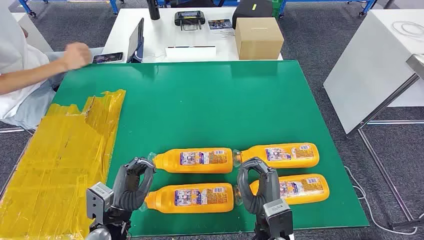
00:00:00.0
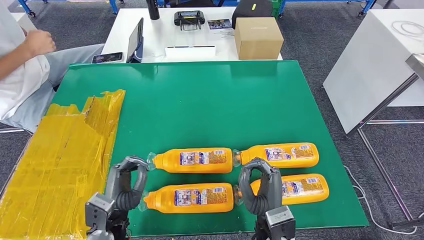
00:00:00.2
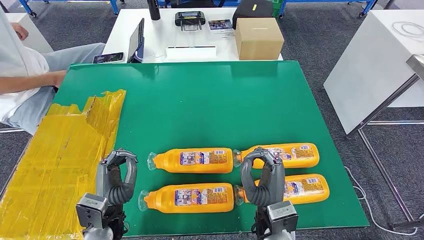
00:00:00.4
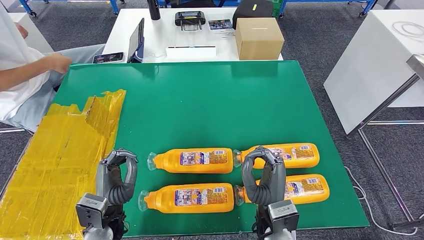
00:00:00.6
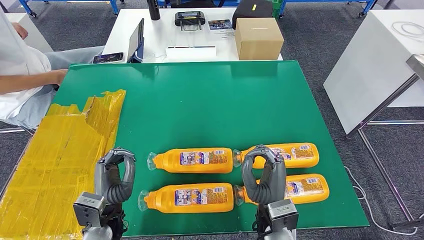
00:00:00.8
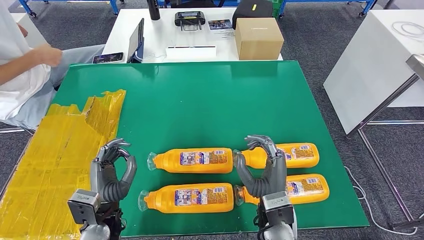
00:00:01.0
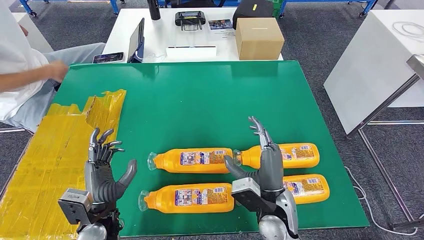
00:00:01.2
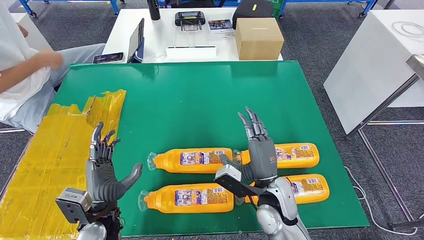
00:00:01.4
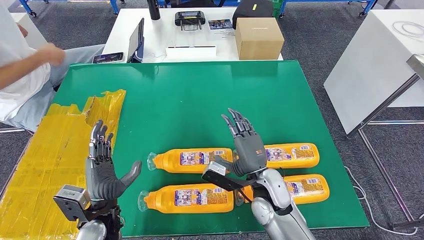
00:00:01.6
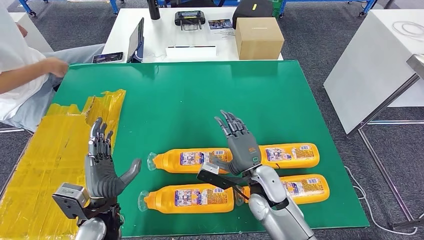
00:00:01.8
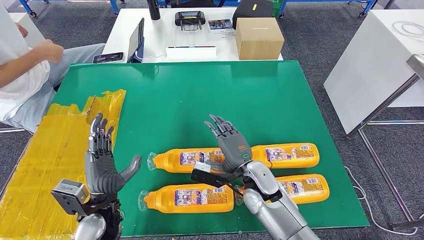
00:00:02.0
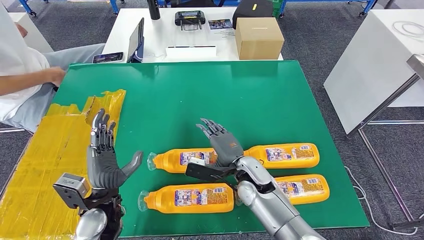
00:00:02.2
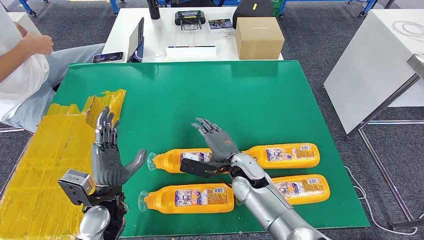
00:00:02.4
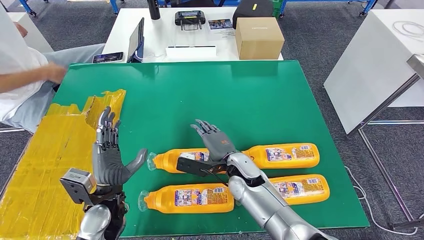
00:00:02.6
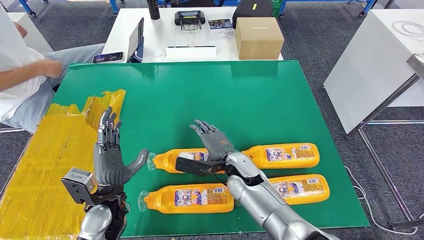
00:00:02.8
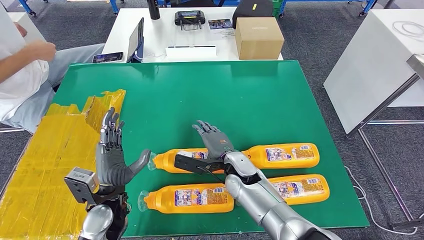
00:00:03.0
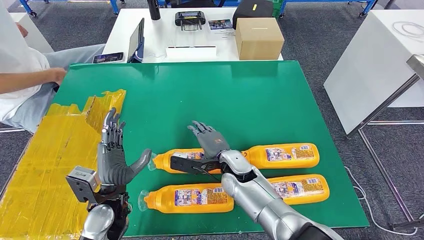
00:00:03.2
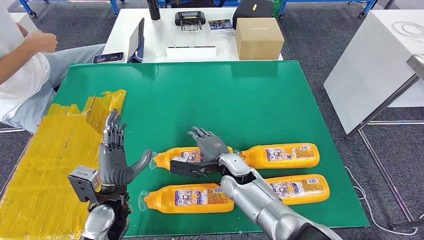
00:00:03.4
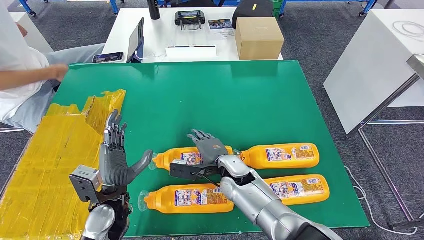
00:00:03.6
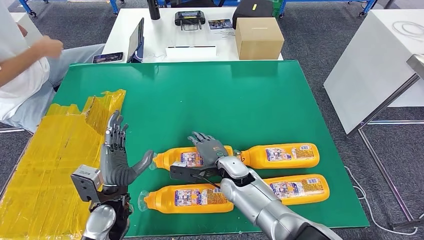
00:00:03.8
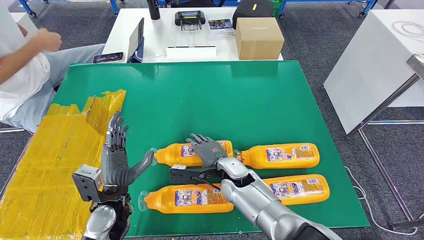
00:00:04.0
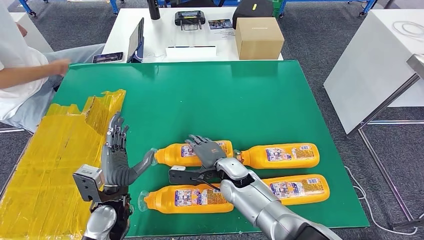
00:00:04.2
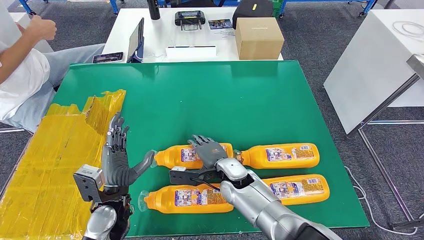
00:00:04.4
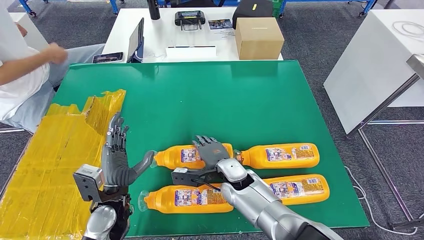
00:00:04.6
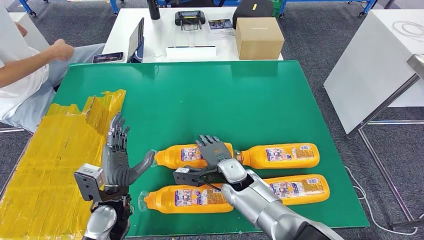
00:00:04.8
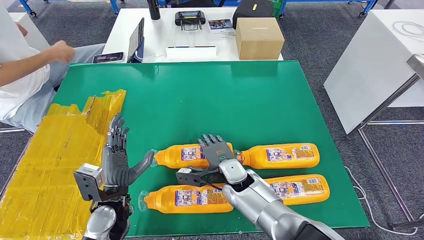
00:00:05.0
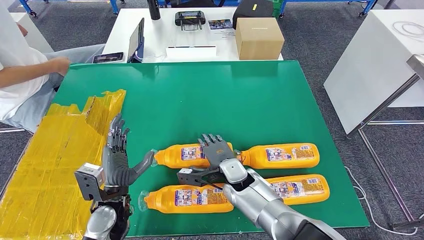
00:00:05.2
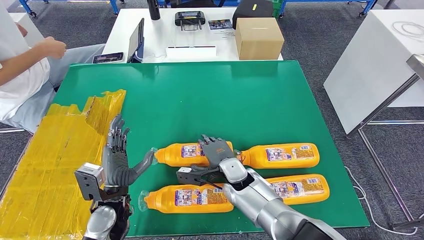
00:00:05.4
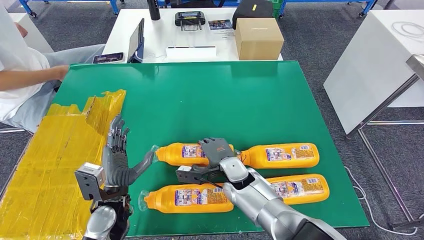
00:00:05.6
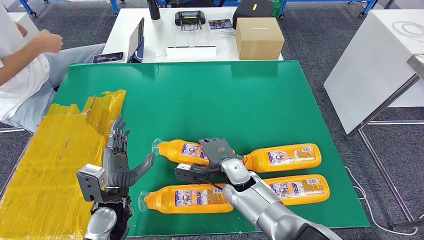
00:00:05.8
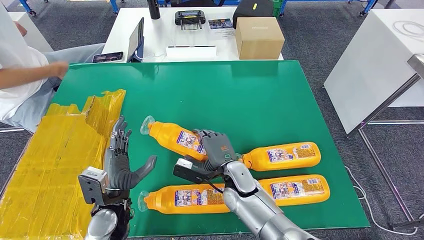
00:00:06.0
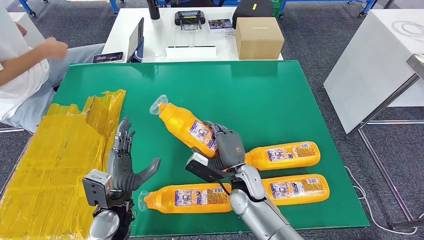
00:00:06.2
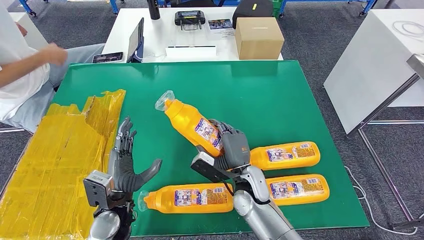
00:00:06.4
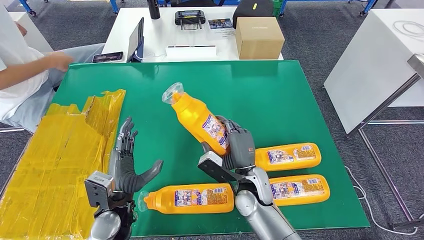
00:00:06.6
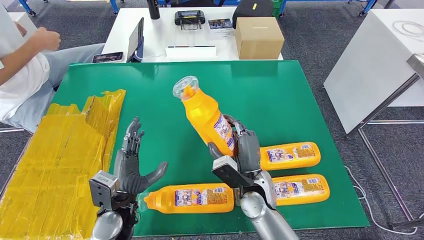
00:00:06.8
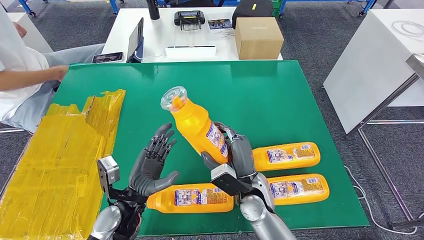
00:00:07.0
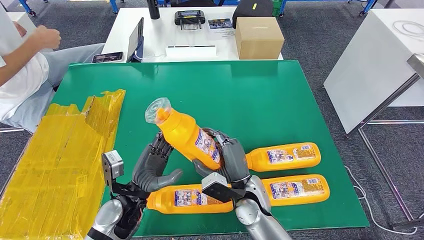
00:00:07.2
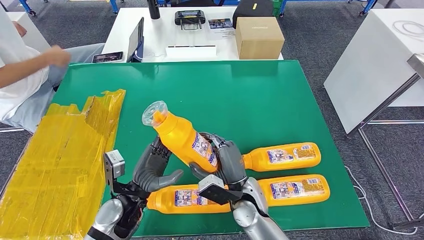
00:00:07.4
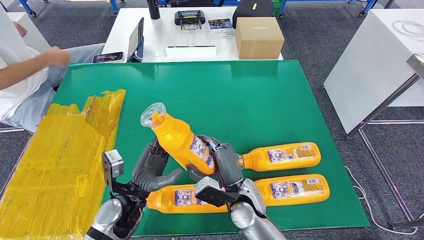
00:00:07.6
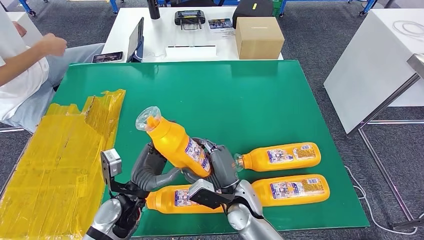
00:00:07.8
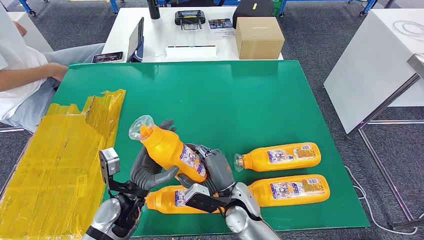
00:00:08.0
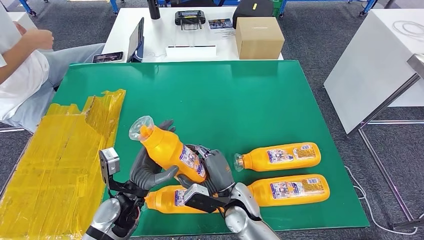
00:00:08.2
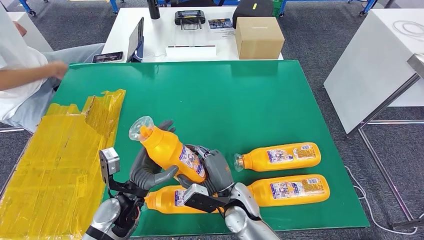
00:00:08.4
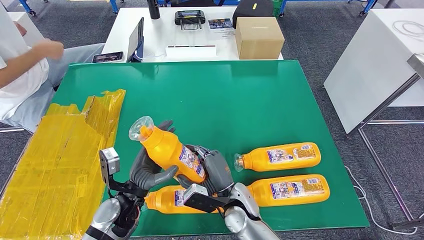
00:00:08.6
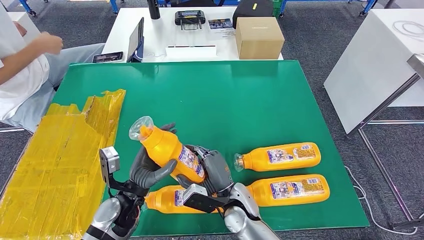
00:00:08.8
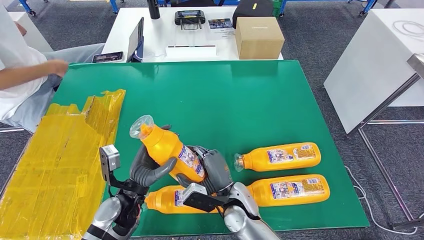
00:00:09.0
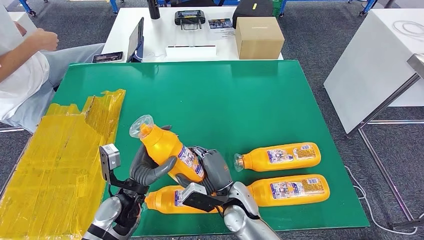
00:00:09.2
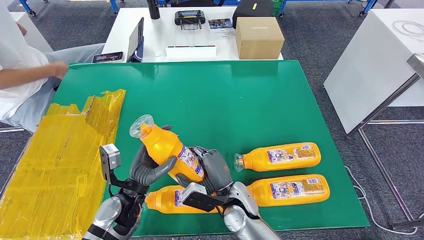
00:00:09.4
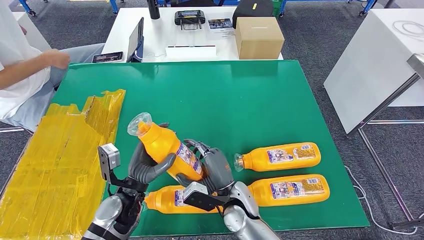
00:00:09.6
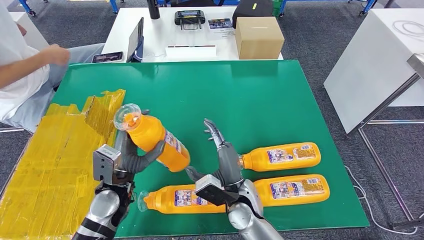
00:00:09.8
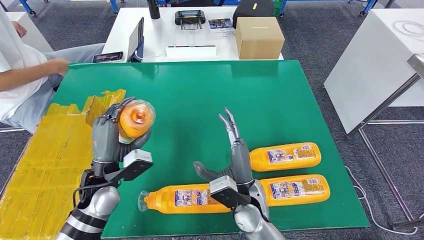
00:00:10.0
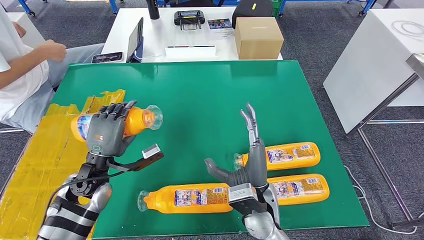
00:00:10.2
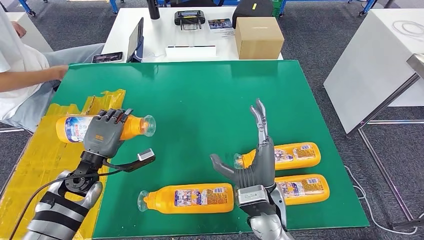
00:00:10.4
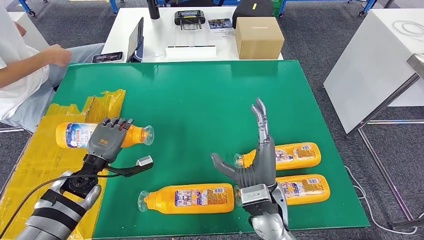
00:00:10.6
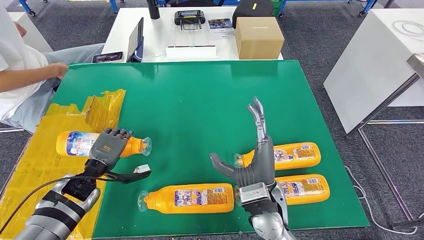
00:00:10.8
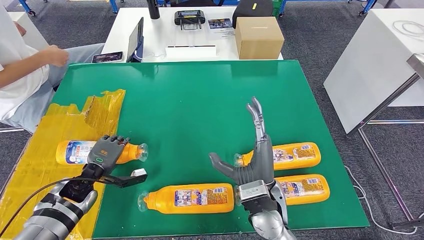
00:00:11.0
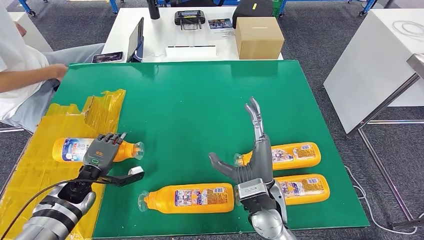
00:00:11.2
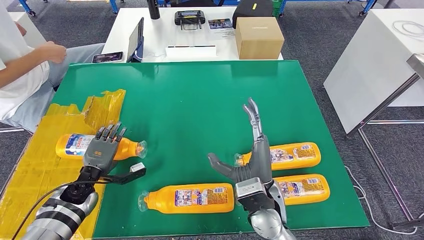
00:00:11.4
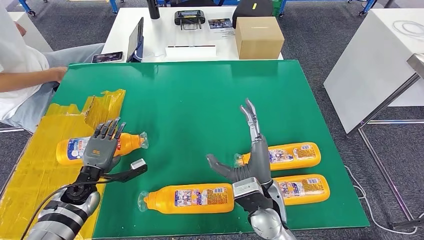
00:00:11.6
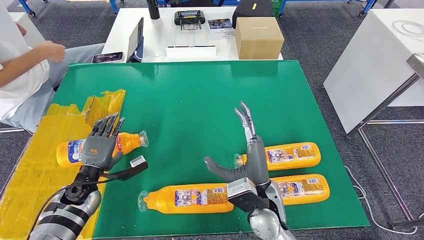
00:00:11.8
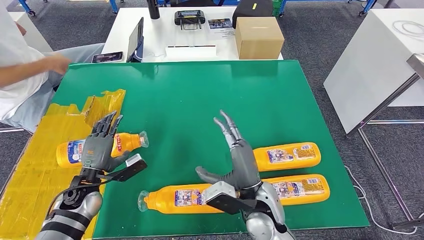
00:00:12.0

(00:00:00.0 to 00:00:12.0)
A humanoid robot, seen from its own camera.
Step, 00:00:00.0 - 00:00:06.2: Take the bottle from the table.
00:00:01.6 - 00:00:03.0: The right hand is displaced to the left and forward by approximately 10 cm.
00:00:03.0 - 00:00:04.4: The hands move only a little.
00:00:06.0 - 00:00:07.6: The right hand heads backward, covering some 5 cm.
00:00:07.6 - 00:00:09.0: The hands stay close to where they were, moving slightly.
00:00:09.0 - 00:00:10.4: The right hand heads upward, covering approximately 10 cm, while the left hand travels to the left and forward by approximately 10 cm.
00:00:10.4 - 00:00:12.0: The left hand moves downward, some 5 cm.

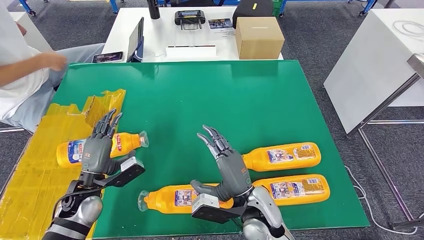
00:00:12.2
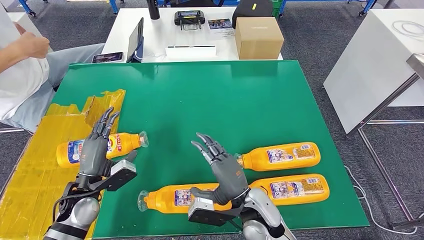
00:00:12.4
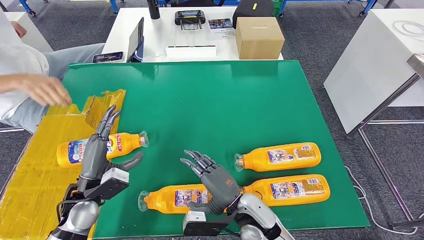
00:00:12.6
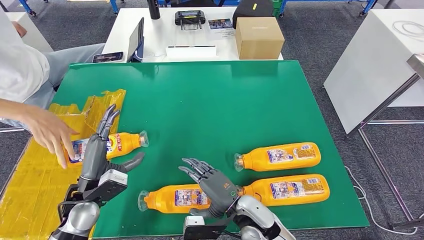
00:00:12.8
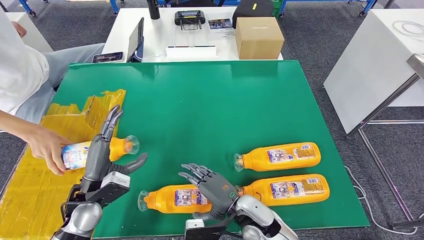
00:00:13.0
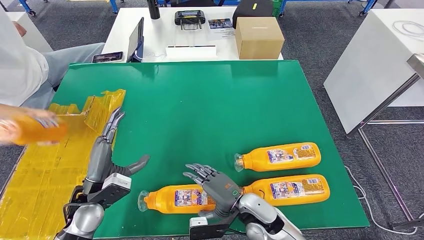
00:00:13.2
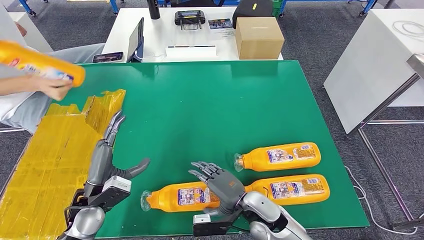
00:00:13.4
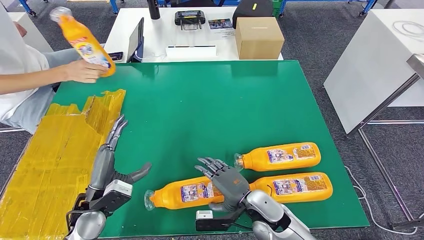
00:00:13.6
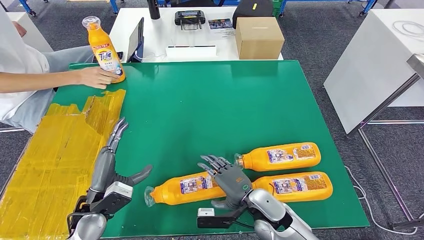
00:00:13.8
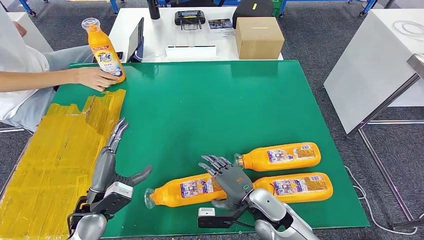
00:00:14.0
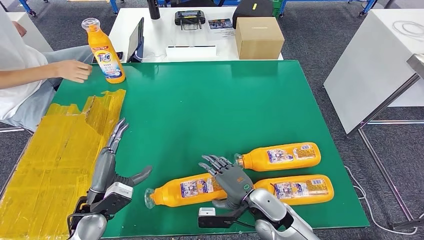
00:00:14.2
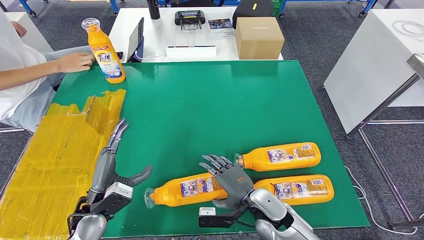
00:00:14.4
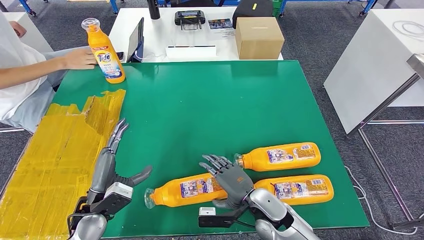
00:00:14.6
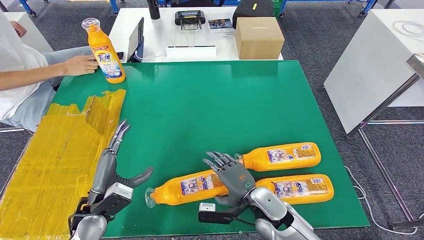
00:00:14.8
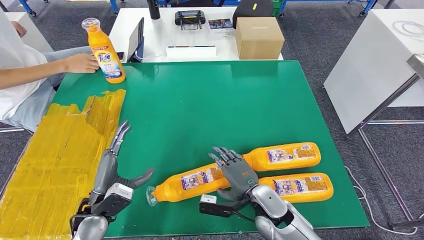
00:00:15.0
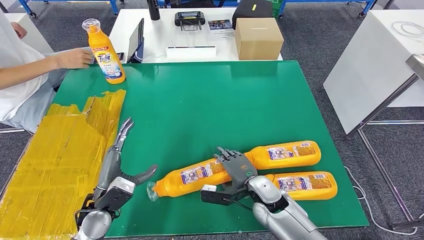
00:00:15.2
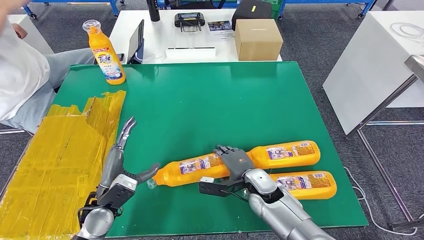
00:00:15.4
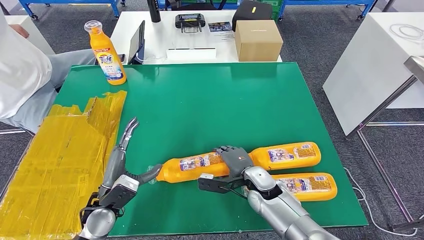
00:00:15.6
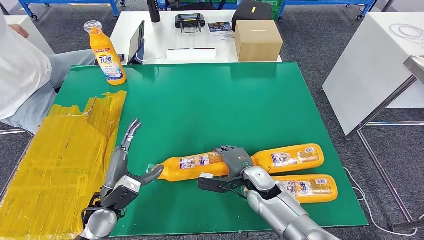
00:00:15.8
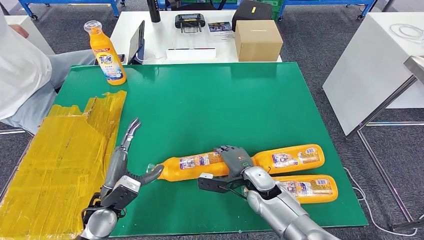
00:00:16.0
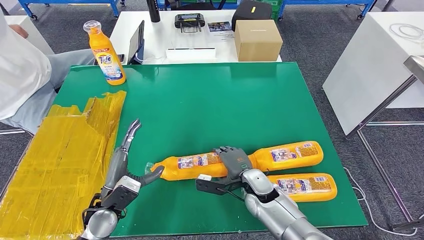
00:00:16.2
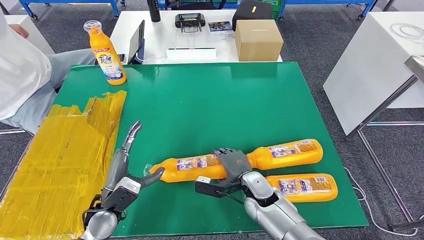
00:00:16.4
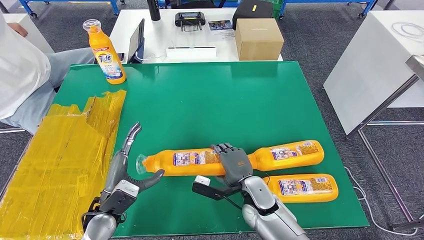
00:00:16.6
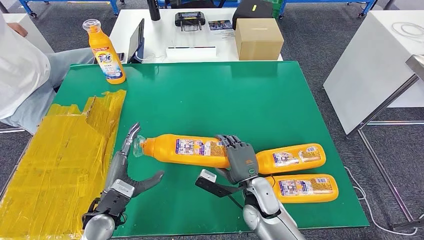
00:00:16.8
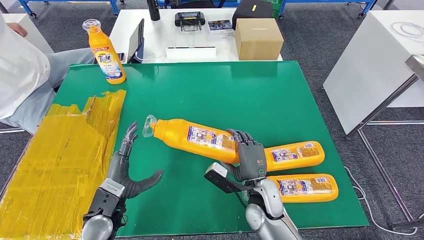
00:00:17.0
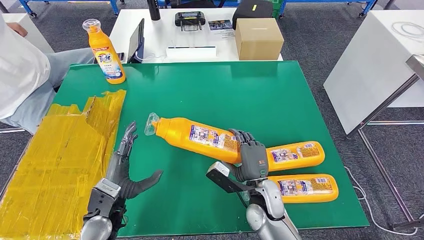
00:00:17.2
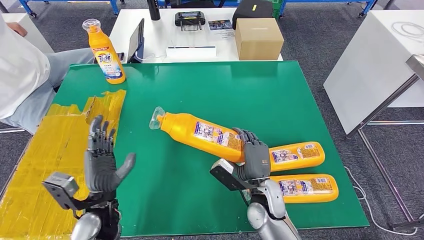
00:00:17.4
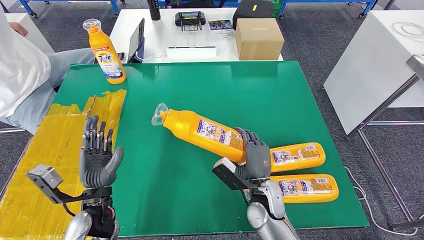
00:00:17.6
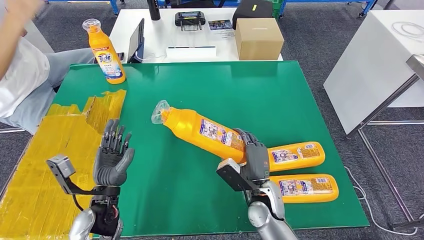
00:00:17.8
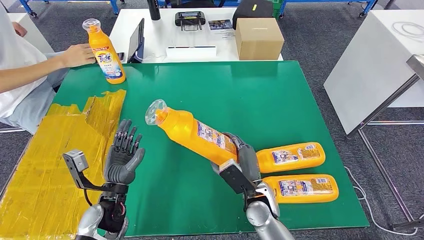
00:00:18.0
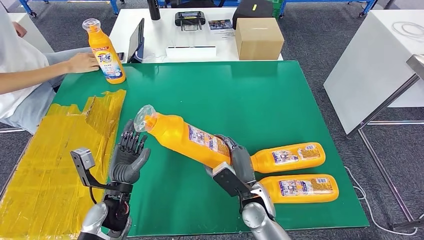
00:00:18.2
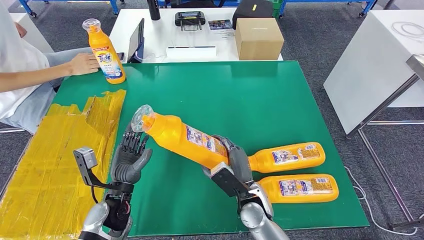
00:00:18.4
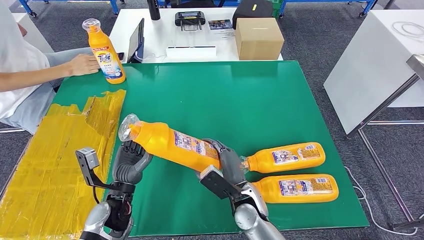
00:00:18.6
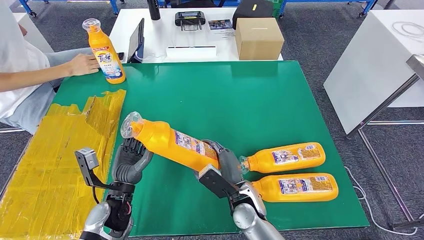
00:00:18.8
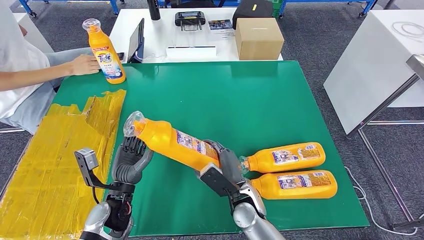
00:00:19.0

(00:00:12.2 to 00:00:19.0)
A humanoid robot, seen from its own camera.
Step, 00:00:13.0 - 00:00:18.0: Pick up the bottle from the table.
00:00:12.2 - 00:00:13.6: The right hand shifts some 5 cm downward; the left hand ends up about 5 cm from where it was.
00:00:13.6 - 00:00:15.0: The hands make only small movements.
